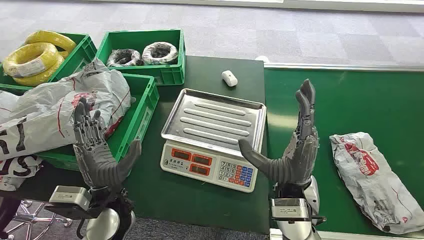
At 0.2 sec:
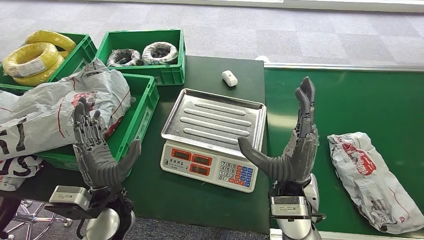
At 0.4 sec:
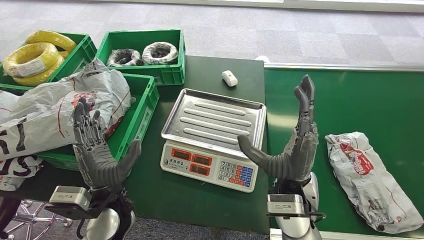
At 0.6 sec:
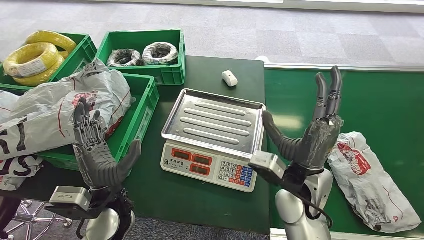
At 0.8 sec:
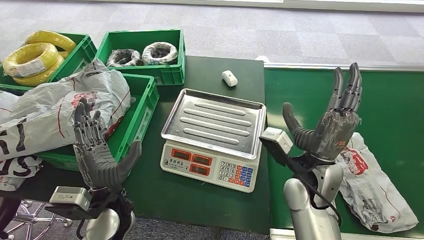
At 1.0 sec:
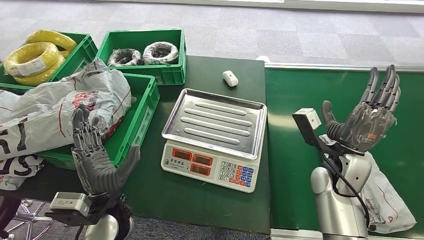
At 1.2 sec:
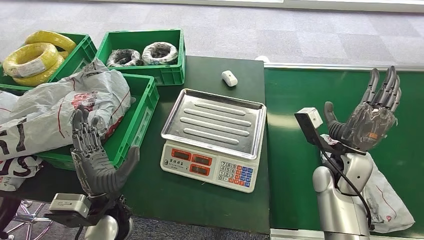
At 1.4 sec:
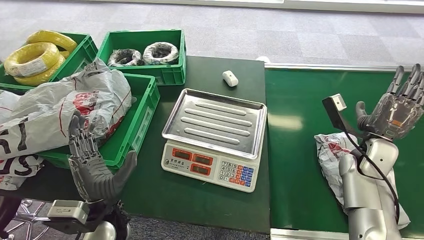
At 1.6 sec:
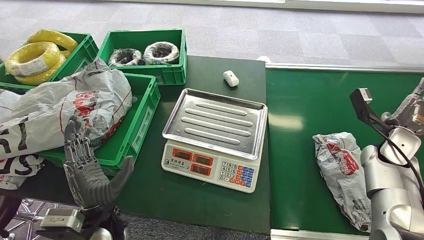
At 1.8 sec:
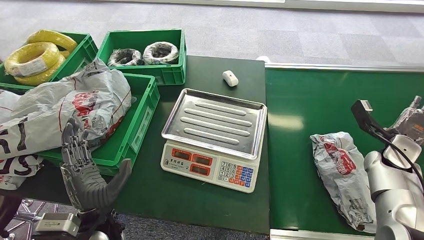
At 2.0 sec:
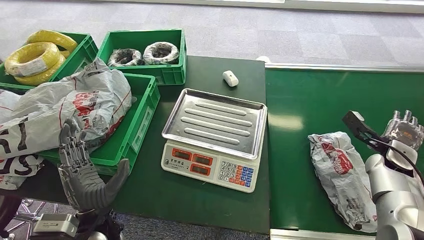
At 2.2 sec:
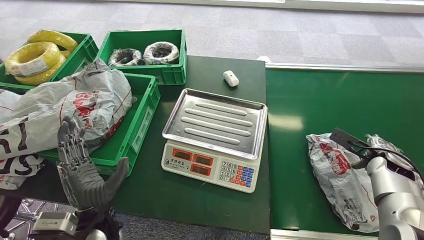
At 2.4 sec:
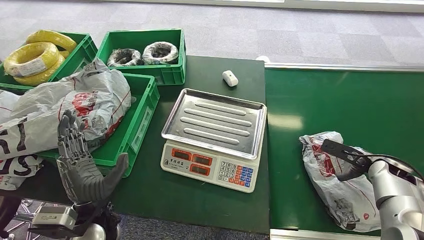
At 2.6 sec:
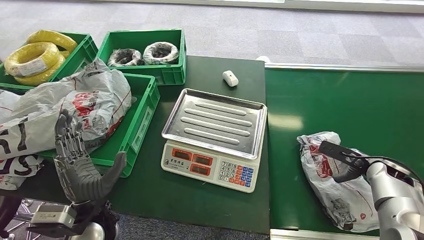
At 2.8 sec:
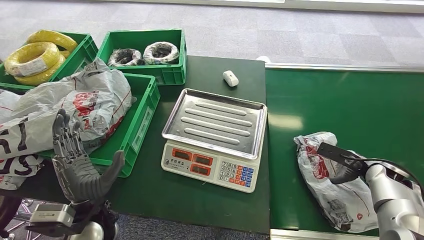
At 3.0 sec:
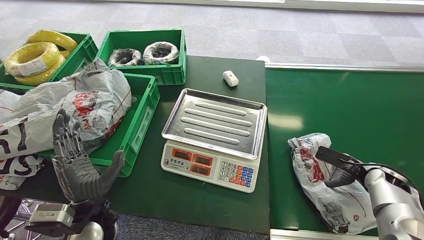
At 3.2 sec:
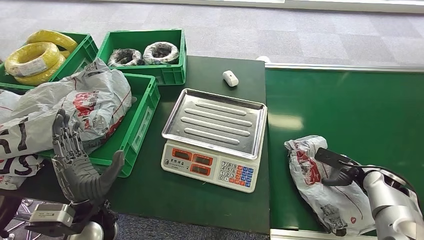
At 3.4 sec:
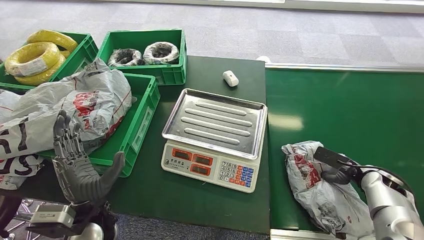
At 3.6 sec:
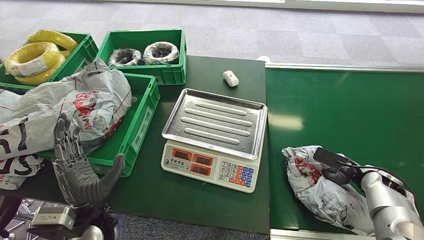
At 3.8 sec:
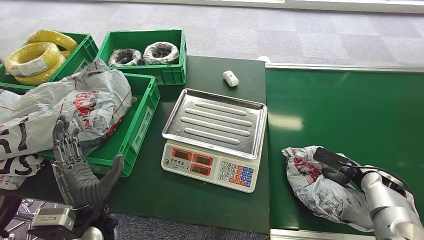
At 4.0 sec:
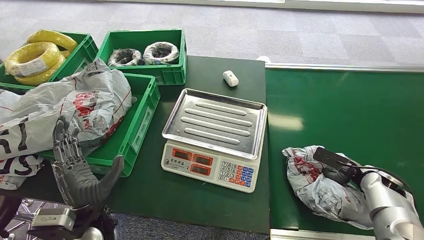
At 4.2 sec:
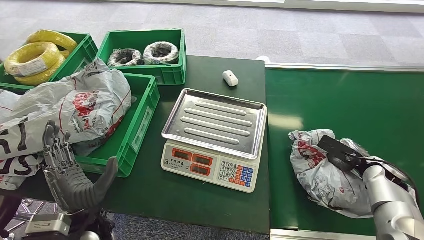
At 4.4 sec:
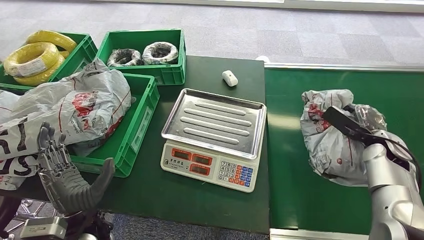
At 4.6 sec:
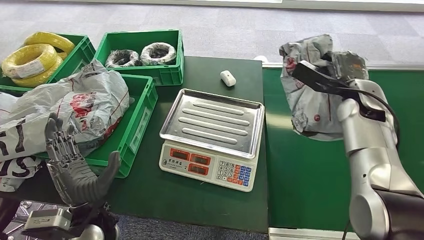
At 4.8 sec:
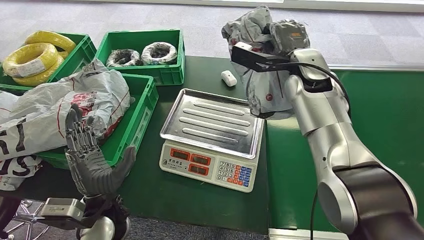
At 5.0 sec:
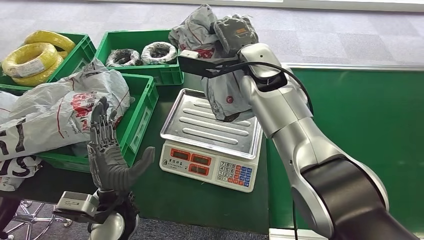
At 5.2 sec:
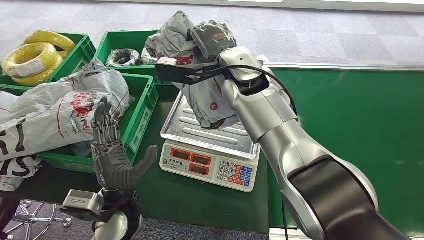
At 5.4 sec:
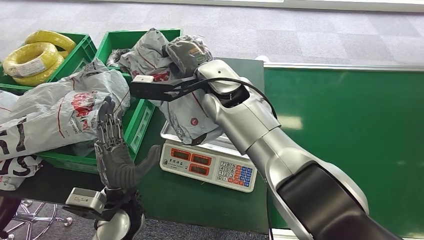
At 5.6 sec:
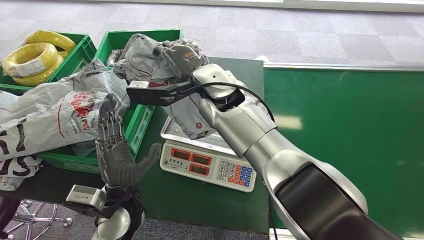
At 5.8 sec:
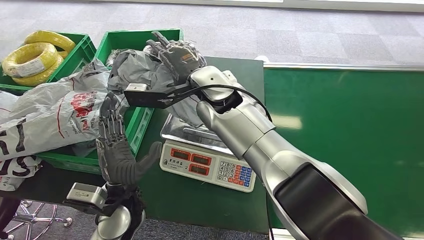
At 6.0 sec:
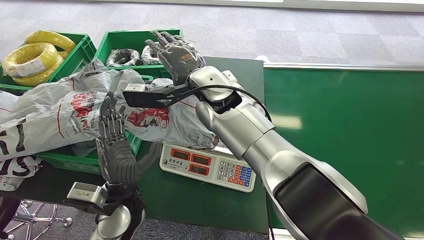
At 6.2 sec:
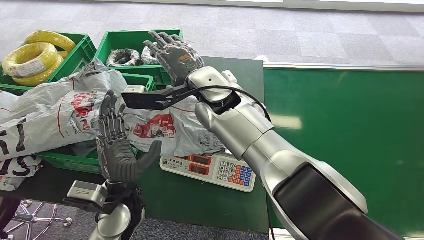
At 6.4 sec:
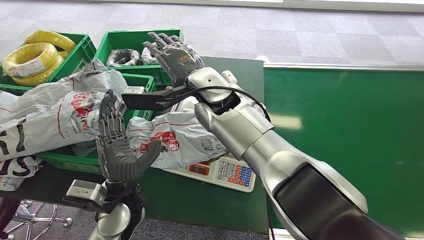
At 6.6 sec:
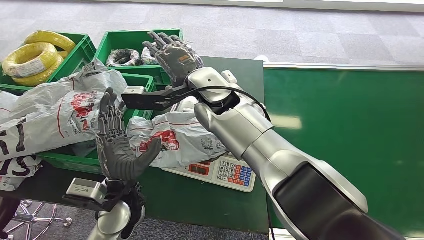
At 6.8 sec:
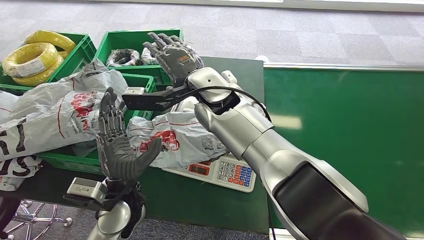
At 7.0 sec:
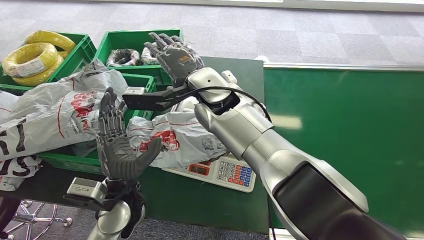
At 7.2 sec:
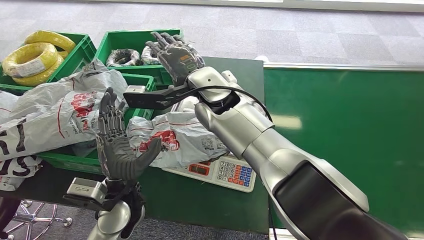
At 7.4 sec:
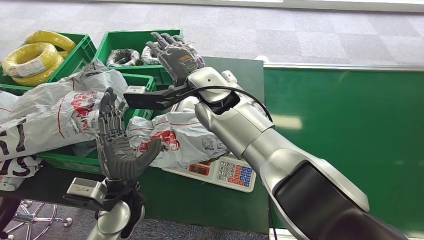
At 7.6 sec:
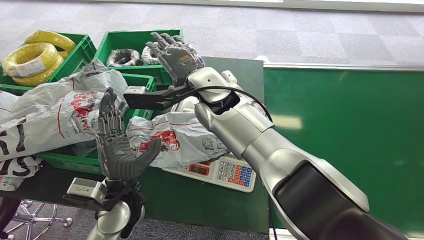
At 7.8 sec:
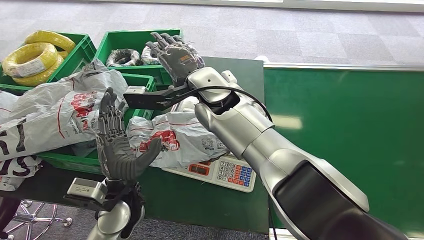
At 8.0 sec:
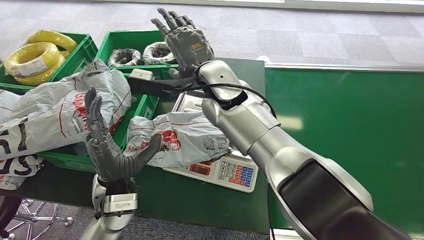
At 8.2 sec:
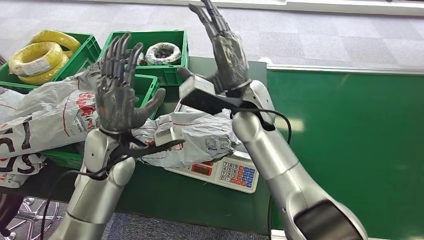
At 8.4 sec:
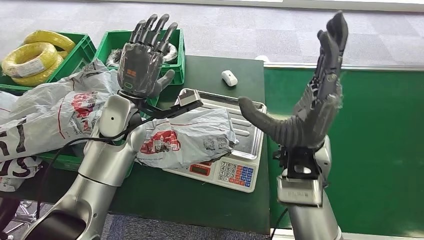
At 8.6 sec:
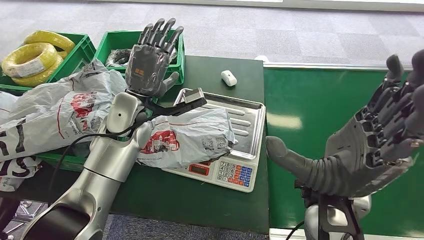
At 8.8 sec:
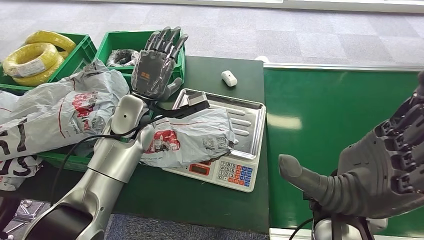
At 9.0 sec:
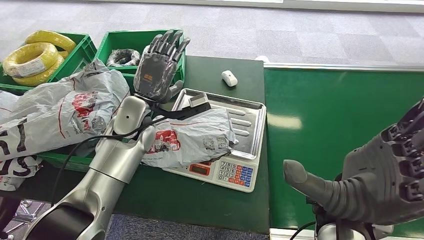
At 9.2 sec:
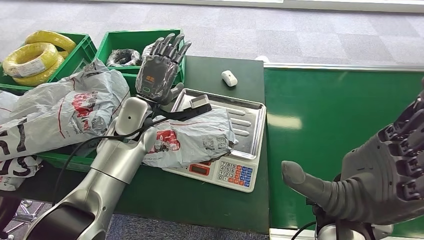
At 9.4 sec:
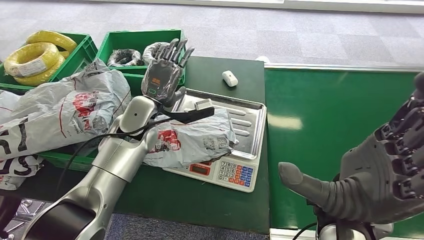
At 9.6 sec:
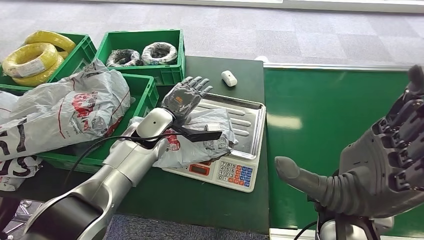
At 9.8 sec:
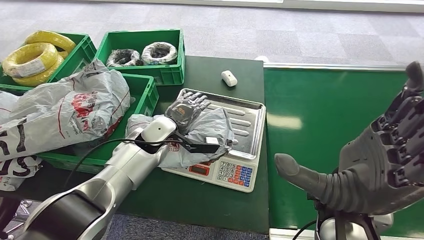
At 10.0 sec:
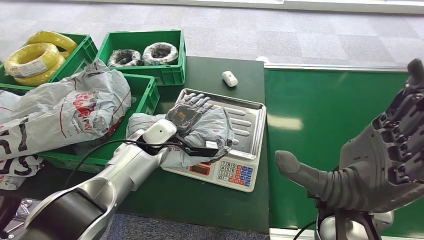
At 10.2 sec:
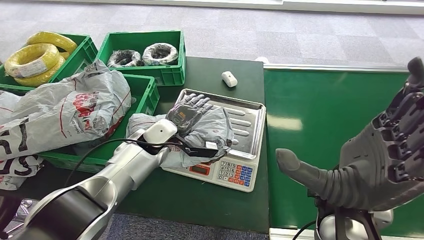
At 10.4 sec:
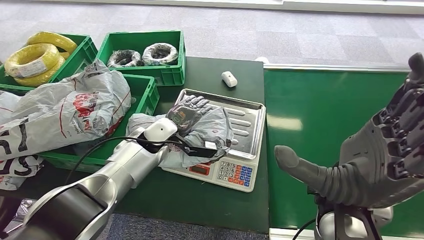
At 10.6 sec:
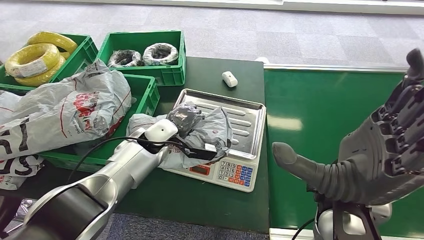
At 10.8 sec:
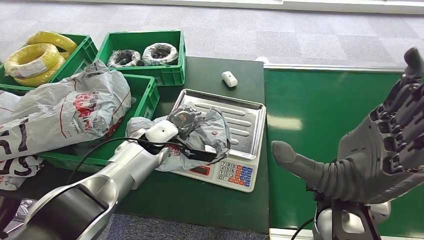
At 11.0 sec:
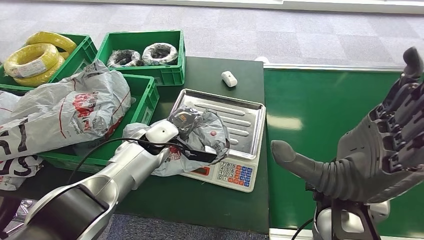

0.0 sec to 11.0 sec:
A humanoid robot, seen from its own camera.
Task of the whole recording: Weigh the package on the weighing device and place it in the left basket.
Step, 0.0 sec to 4.4 sec: Pick up the package from the conveyor belt.
Step, 4.8 sec to 6.8 sec: Place the package onto the inbound machine.
1.6 sec to 3.2 sec: The right hand travels downward and backward by roughly 10 cm.
6.2 sec to 7.8 sec: The two hands keep their place.

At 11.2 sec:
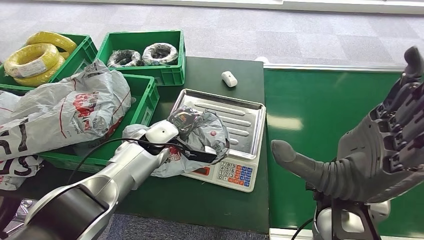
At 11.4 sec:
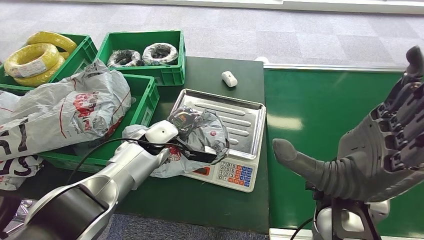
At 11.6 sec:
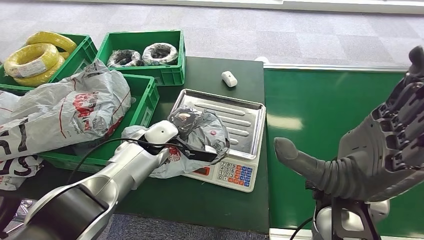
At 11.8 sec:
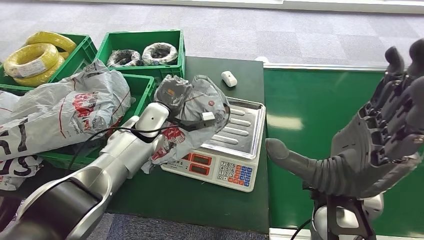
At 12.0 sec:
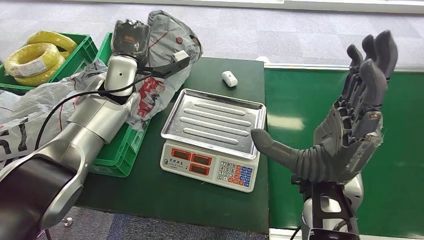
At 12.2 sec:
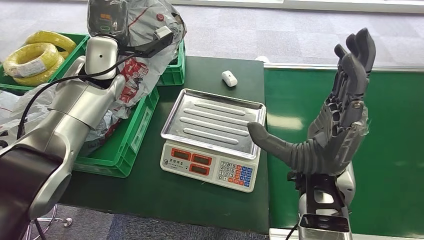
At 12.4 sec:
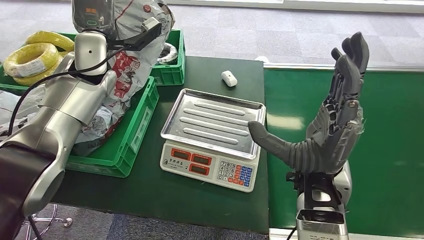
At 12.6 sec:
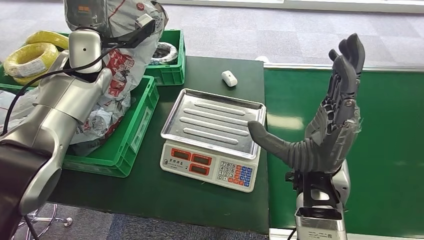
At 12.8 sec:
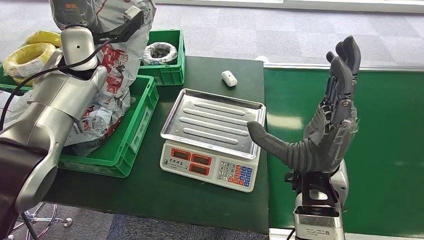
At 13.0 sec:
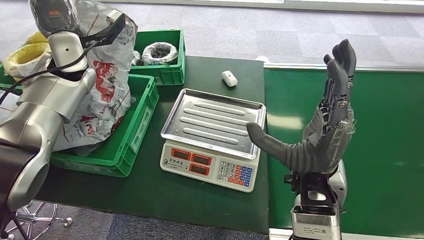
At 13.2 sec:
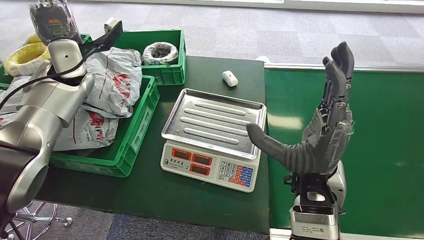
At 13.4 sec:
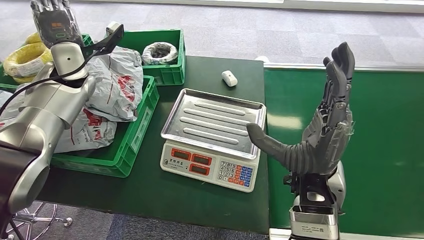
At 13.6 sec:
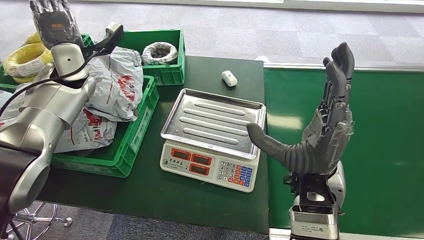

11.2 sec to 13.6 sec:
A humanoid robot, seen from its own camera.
Task of the whole recording: Weigh the package on the weighing device and place it in the left basket.
Step, 12.4 sec to 13.6 sec: Place the package into the parcel locker.
